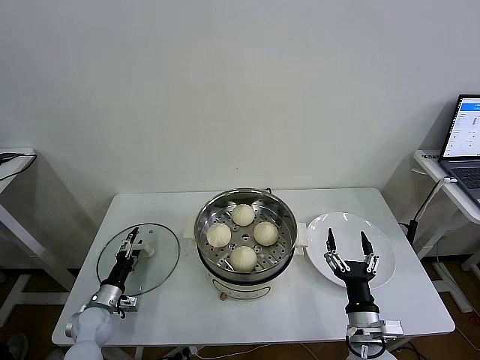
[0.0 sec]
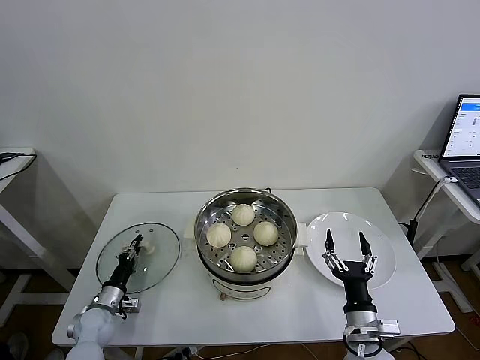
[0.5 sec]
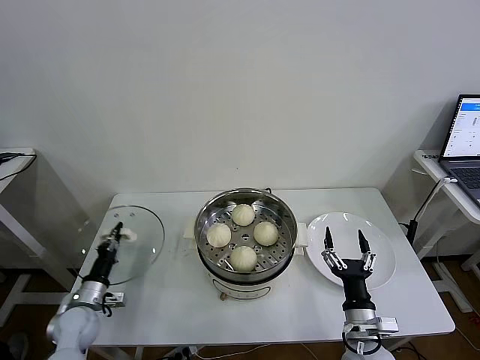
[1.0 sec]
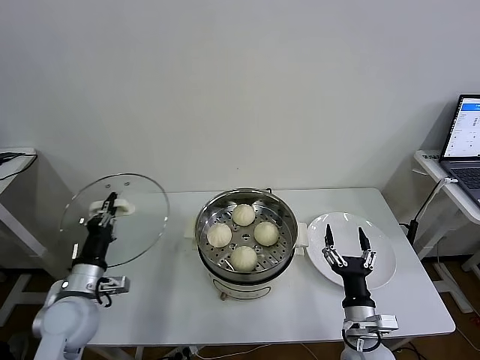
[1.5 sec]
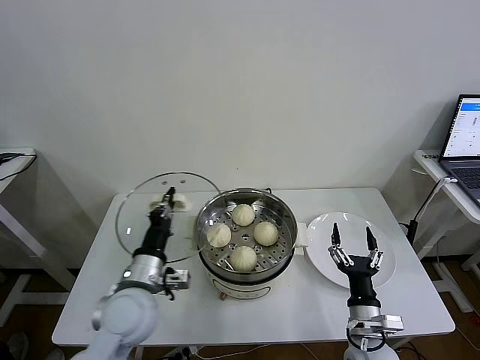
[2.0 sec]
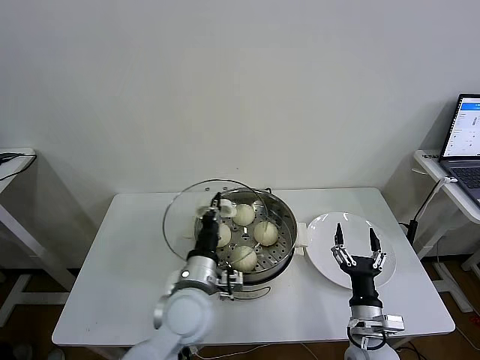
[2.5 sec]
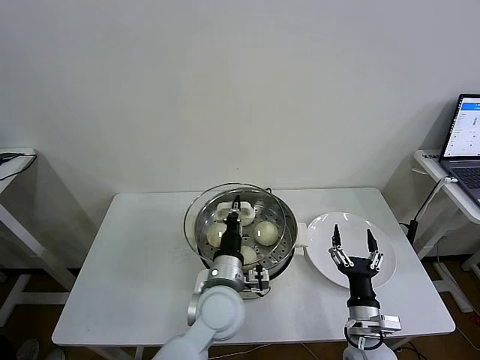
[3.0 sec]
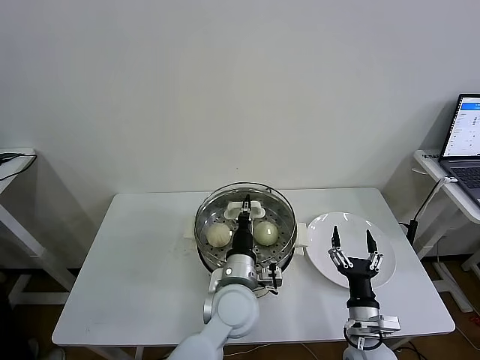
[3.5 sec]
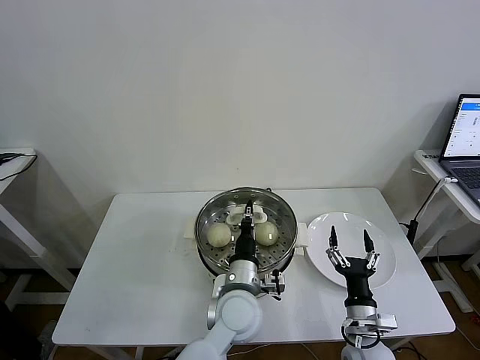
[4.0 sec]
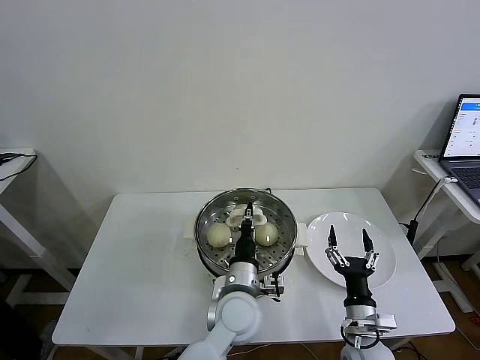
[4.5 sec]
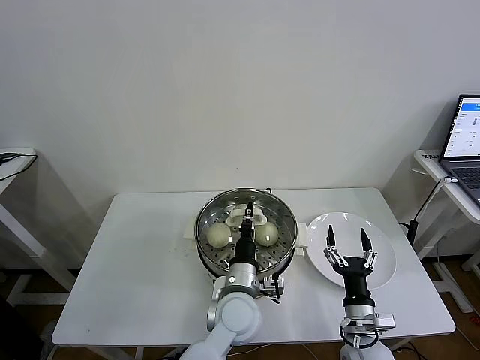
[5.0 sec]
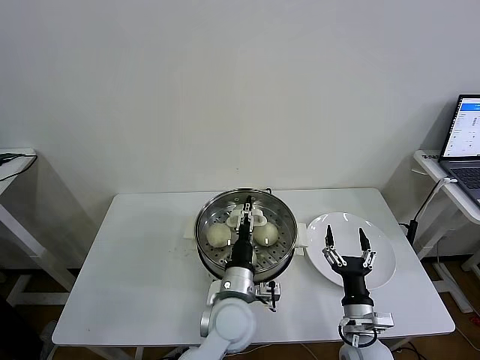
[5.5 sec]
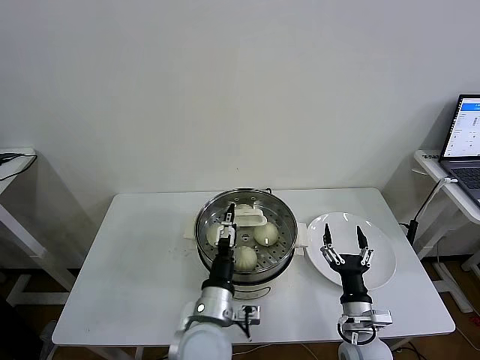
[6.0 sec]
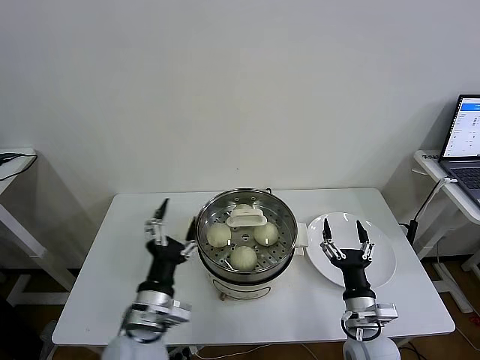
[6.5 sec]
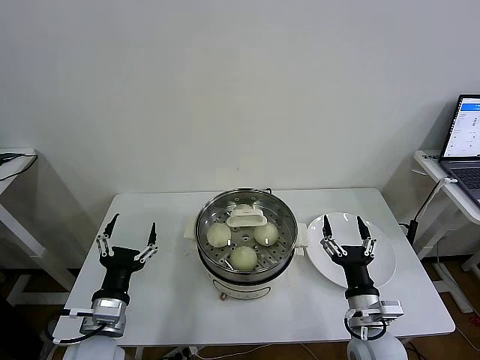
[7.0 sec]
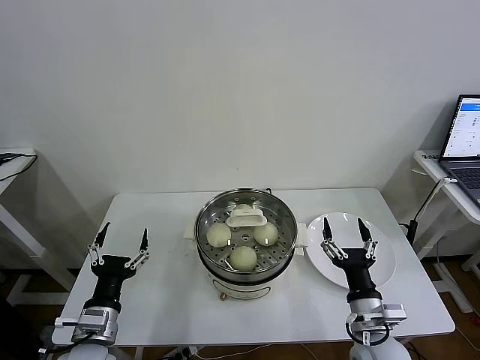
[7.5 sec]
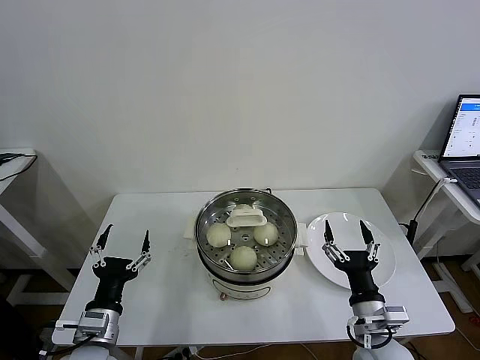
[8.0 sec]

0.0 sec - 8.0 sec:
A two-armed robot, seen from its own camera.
Task of the whole recording: take steamed baozi put them in steamer then cover it.
Step, 1.0 sec - 5.5 sec: Place the pot lid on the steamer with left gripper.
0.0 sec - 2.0 sec: The left gripper shifts some 30 cm upward and to the right, and closes up.
2.0 sec - 4.0 sec: The left gripper heads to the right, covering approximately 20 cm.
4.0 sec - 6.0 sec: The left gripper shifts roughly 10 cm backward and to the left, and opens its fingers.
6.0 sec - 8.0 sec: The right gripper is displaced upward by approximately 5 cm, while the left gripper travels to the left by approximately 20 cm.

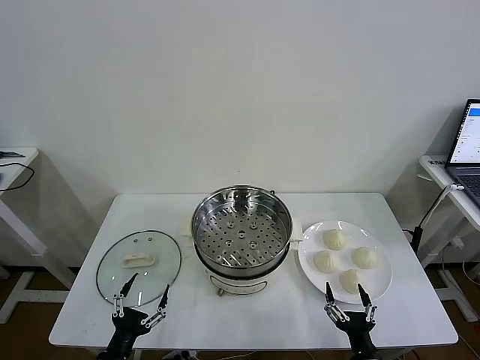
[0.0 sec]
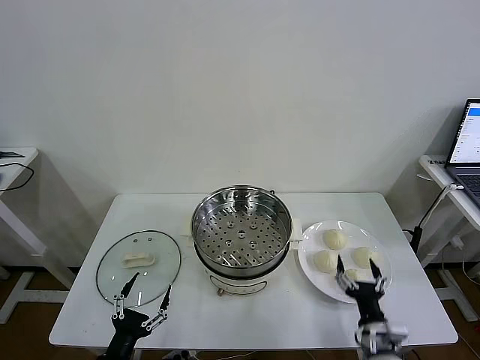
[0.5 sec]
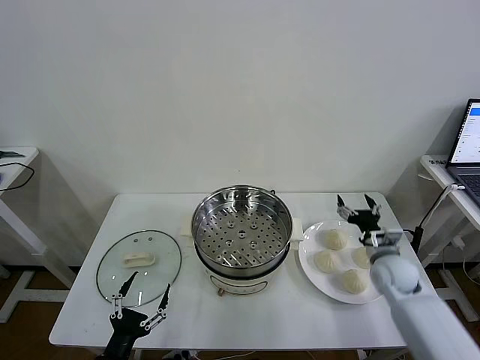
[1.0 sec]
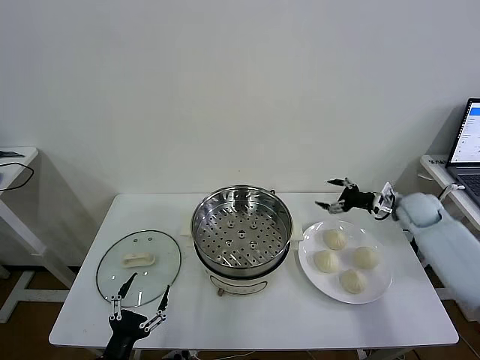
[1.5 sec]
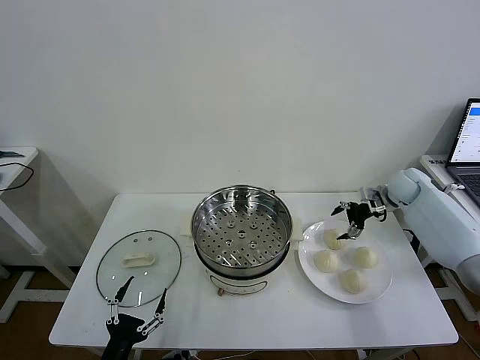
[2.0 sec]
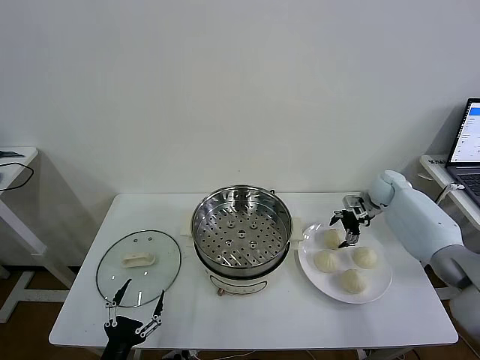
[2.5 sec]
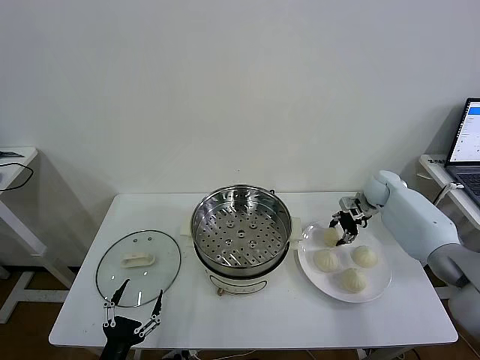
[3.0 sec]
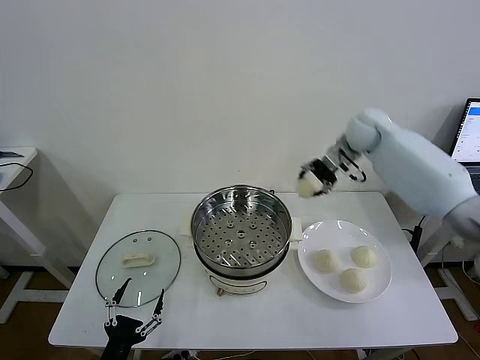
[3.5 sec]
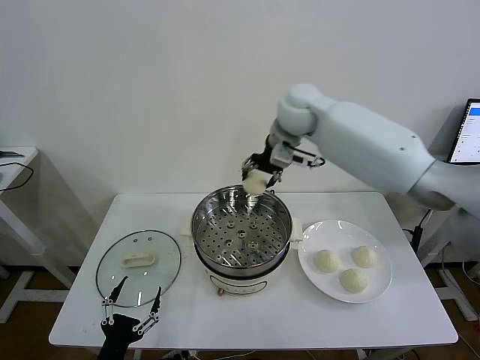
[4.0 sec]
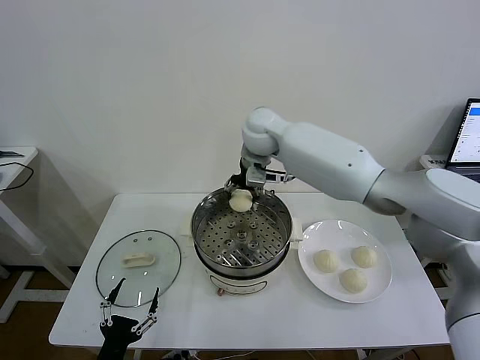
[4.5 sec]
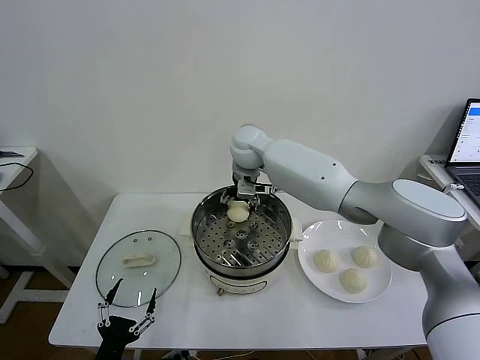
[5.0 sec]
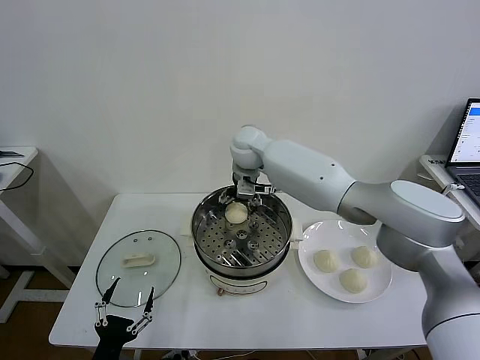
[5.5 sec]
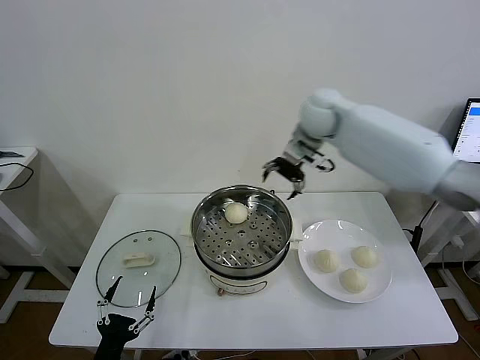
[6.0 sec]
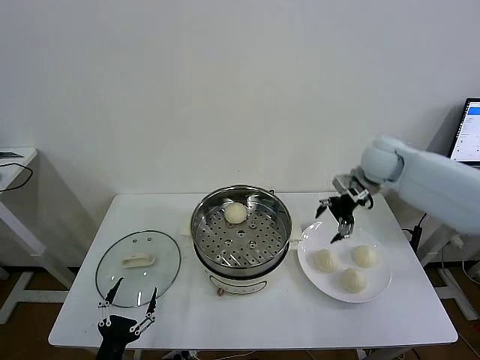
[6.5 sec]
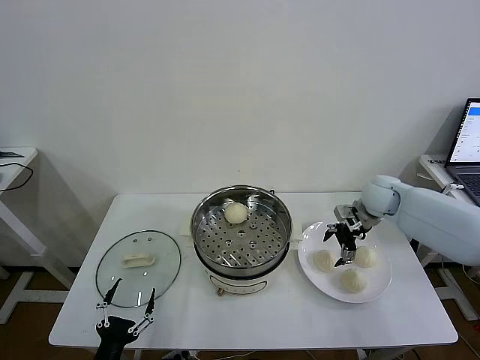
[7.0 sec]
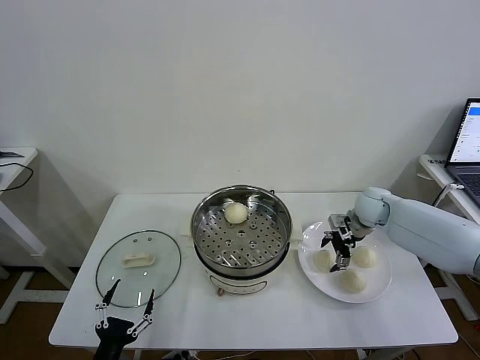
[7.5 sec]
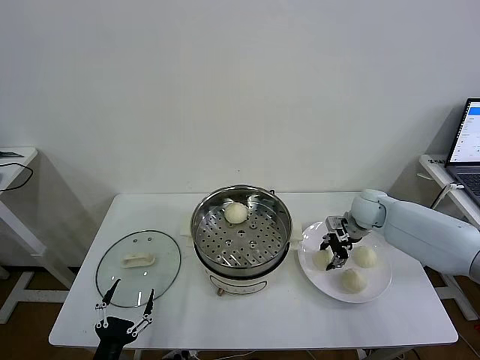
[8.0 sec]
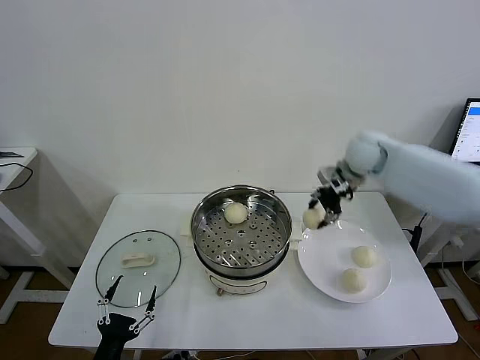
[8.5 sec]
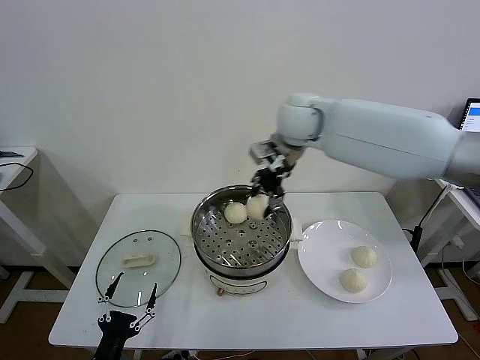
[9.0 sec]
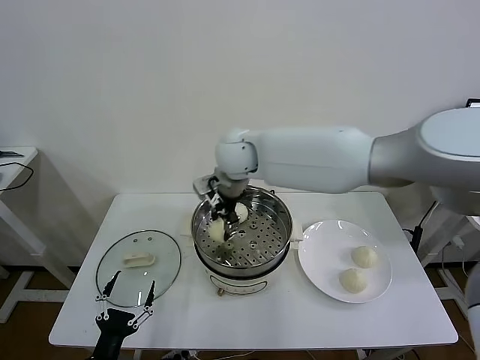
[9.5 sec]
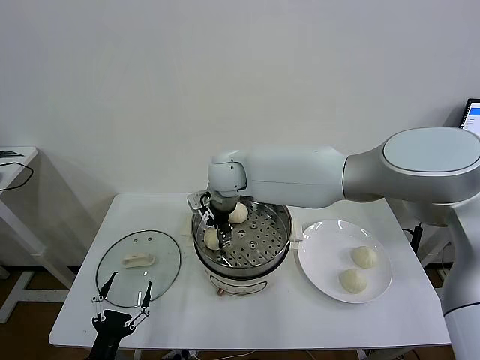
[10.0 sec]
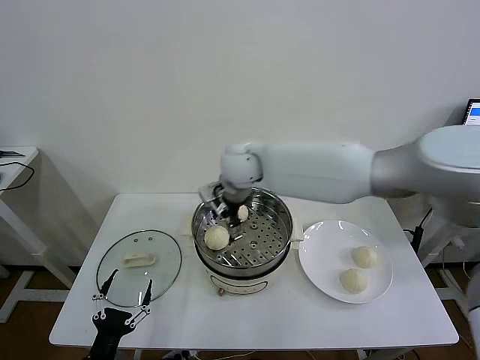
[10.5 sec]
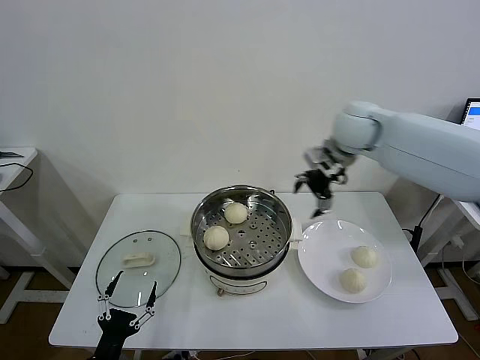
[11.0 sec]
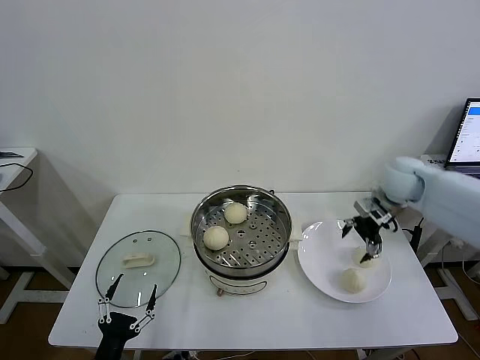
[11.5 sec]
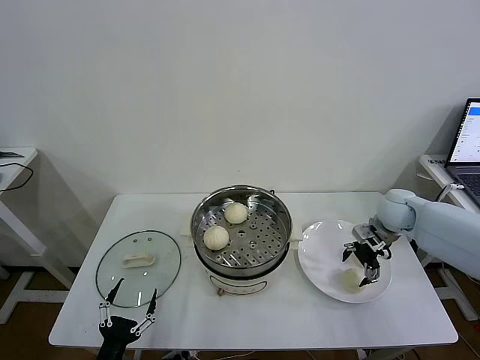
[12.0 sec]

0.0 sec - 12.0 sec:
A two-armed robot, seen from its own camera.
Task of the whole recording: take steamed baozi put them in steamer then cover it.
Step, 0.0 sec - 2.5 sec: Grasp the baozi in the plate with right gripper.
Step, 3.0 sec - 5.0 sec: Place the baozi on the steamer with right gripper.
Step, 5.5 sec - 7.5 sec: Grasp the baozi in the plate with right gripper.
Step, 8.0 sec - 10.0 sec: Place the baozi on the steamer with right gripper.
2.0 sec - 4.0 sec: The right gripper is displaced to the left and upward by about 40 cm, and closes its fingers.
4.0 sec - 6.0 sec: The right gripper heads to the right, covering approximately 15 cm, and opens.
6.0 sec - 8.0 sec: The right gripper travels downward and to the right by some 25 cm, and closes.
8.0 sec - 10.0 sec: The right gripper is displaced to the left by roughly 35 cm.
10.0 sec - 12.0 sec: The right gripper heads to the right, covering about 40 cm, and opens.

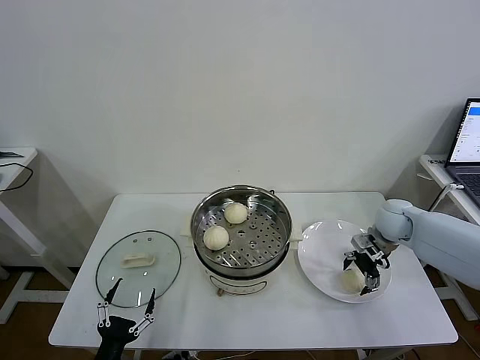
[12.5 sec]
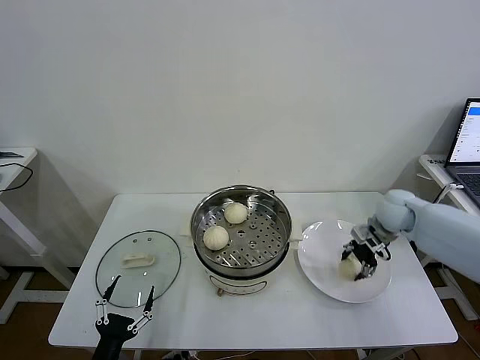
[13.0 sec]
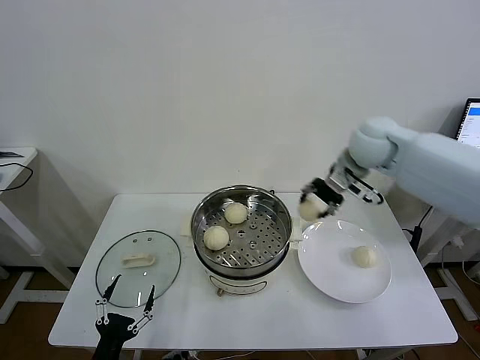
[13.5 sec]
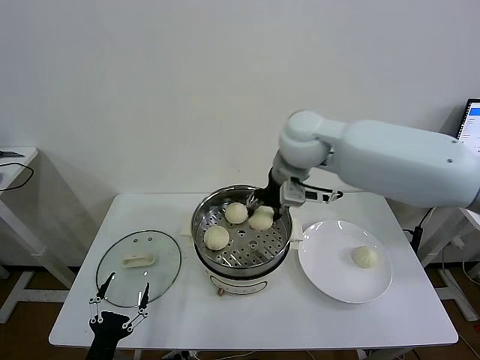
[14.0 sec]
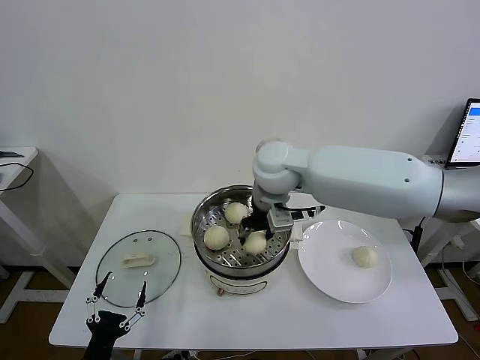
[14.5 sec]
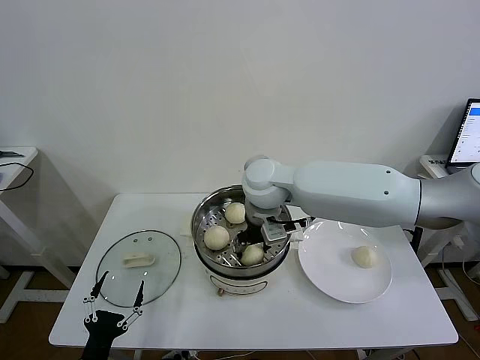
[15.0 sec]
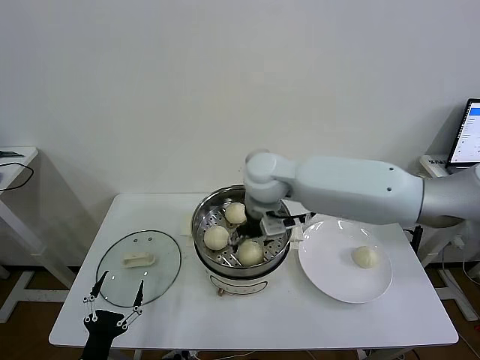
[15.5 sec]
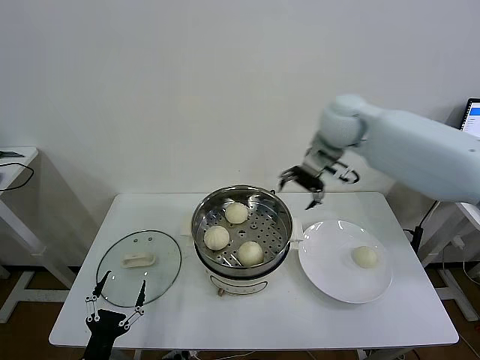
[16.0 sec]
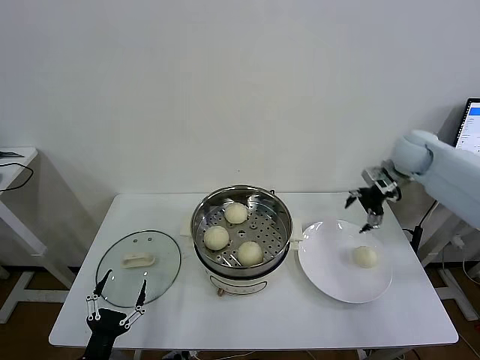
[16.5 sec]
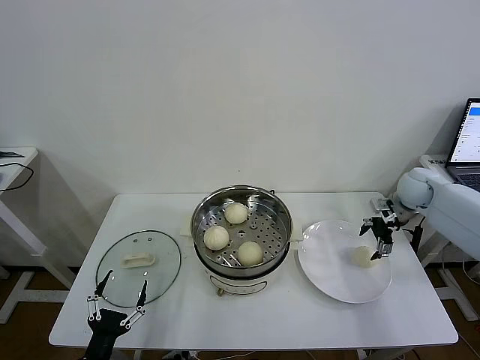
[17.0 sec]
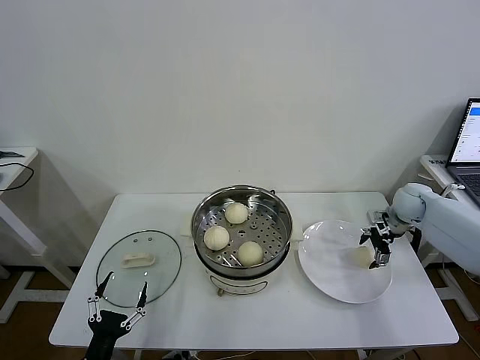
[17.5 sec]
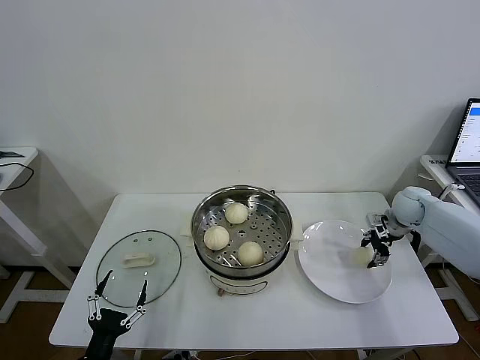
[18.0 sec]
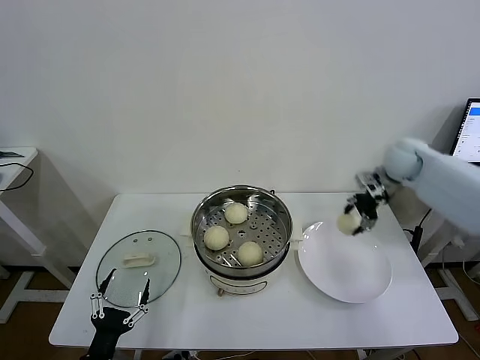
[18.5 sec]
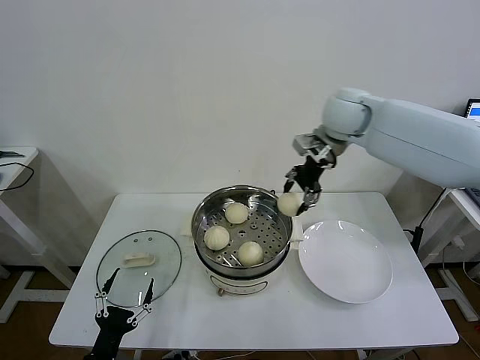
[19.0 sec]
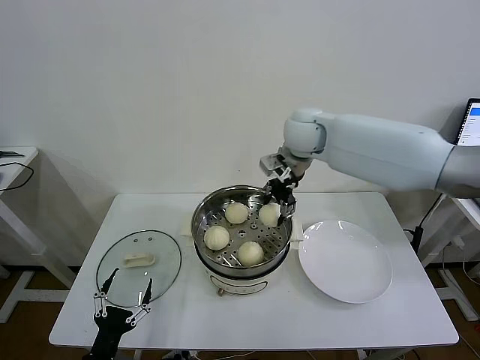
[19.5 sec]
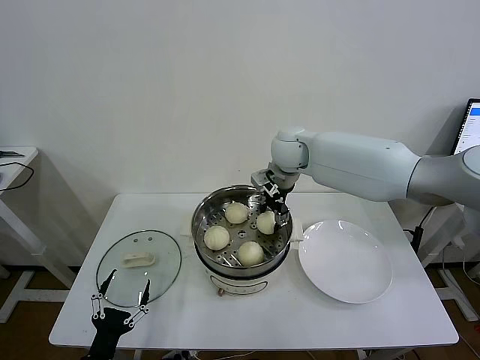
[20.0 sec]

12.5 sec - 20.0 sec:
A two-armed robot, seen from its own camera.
Task of the whole recording: take steamed baozi put them in steamer then cover it.
Step, 13.0 sec - 15.0 sec: Place the baozi on the steamer with right gripper.
Step, 15.5 sec - 17.5 sec: Grasp the baozi in the plate with right gripper.
12.5 sec - 14.5 sec: The right gripper heads to the left and upward, covering roughly 35 cm, and closes up.
14.5 sec - 16.5 sec: The right gripper goes about 35 cm to the right, and opens up.
16.5 sec - 18.0 sec: The right gripper shifts roughly 15 cm downward, and closes.
18.0 sec - 20.0 sec: The right gripper is displaced to the left and upward by roughly 35 cm.
